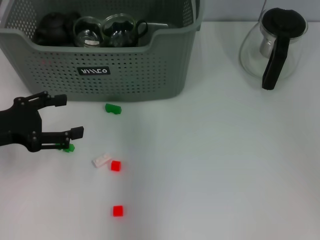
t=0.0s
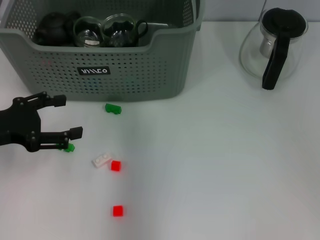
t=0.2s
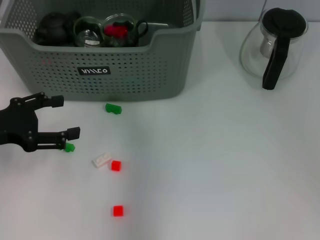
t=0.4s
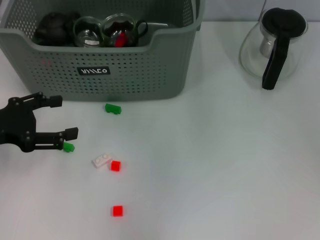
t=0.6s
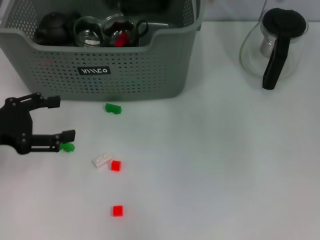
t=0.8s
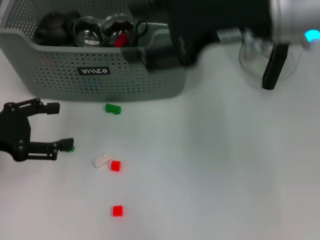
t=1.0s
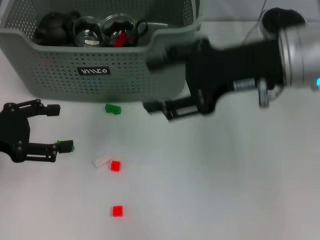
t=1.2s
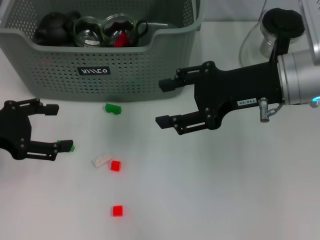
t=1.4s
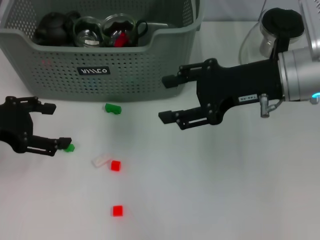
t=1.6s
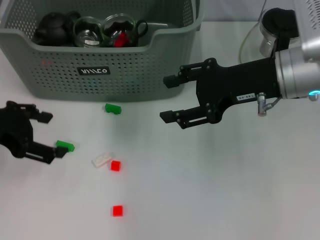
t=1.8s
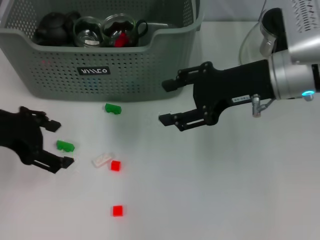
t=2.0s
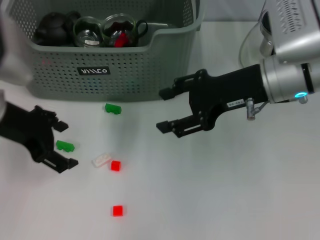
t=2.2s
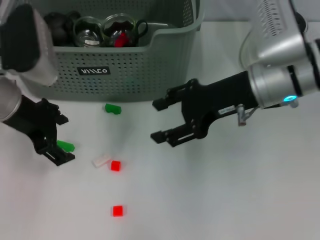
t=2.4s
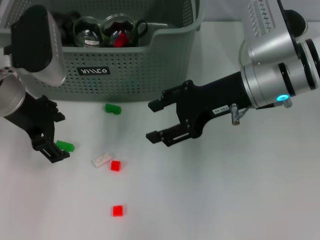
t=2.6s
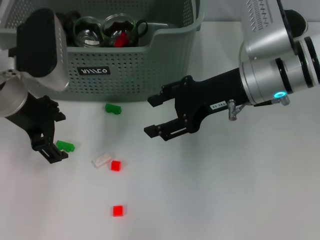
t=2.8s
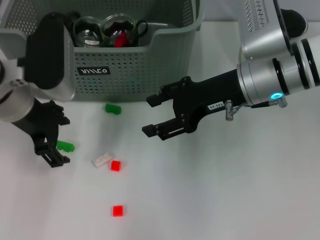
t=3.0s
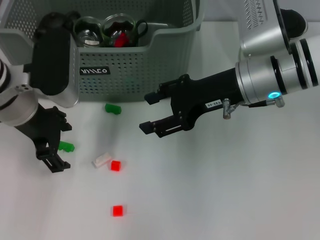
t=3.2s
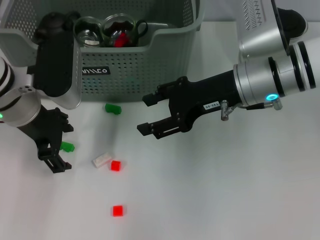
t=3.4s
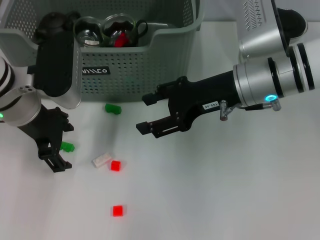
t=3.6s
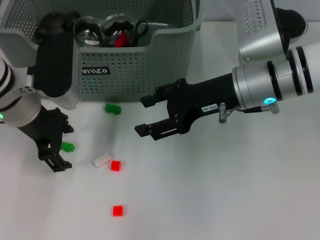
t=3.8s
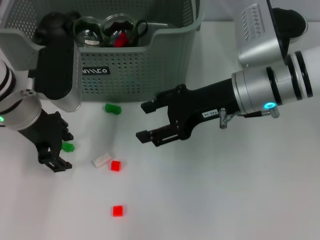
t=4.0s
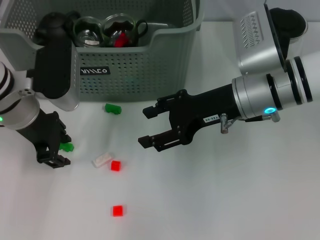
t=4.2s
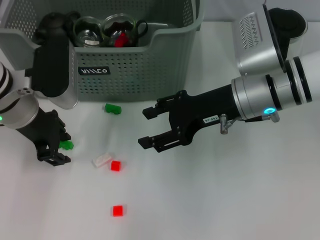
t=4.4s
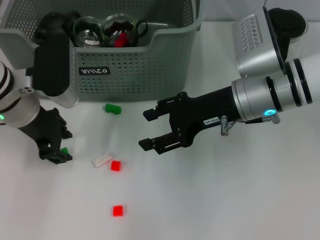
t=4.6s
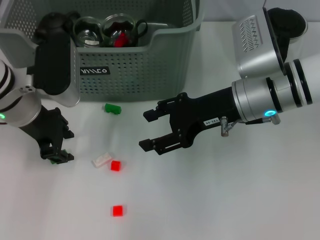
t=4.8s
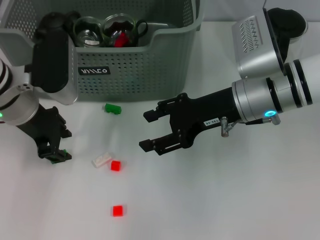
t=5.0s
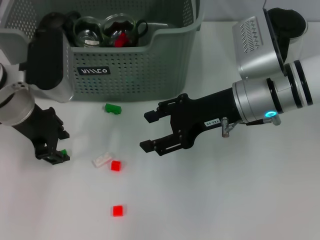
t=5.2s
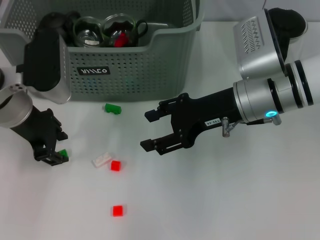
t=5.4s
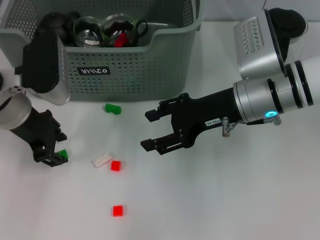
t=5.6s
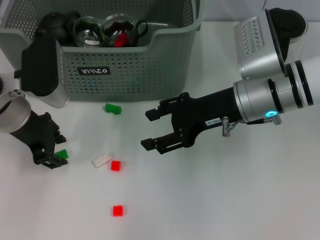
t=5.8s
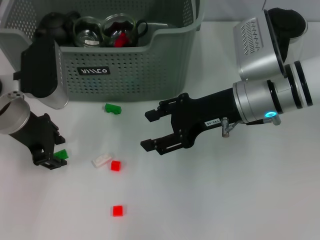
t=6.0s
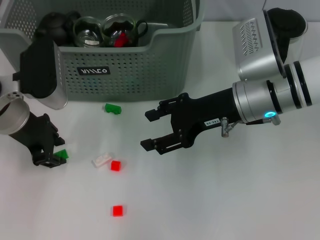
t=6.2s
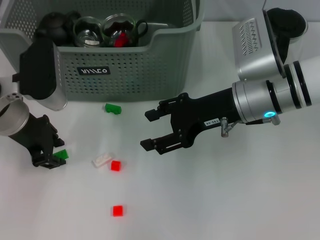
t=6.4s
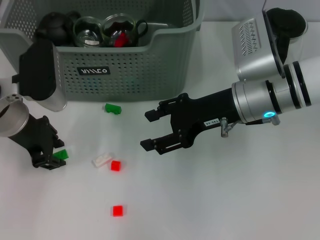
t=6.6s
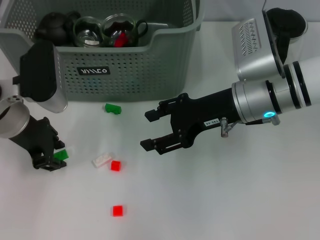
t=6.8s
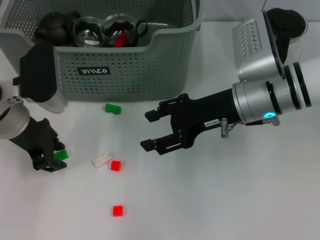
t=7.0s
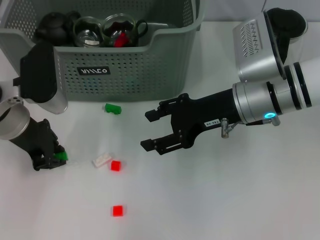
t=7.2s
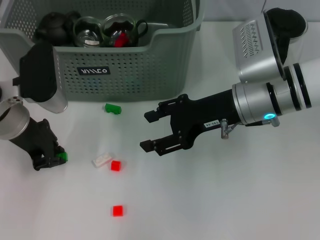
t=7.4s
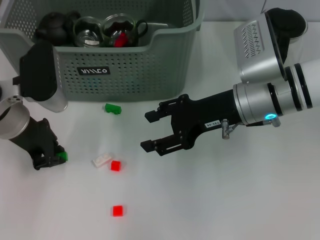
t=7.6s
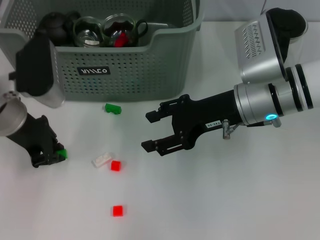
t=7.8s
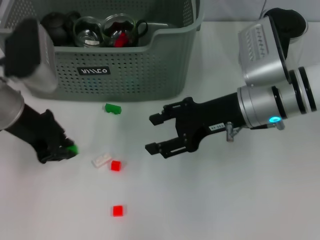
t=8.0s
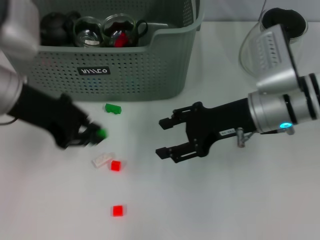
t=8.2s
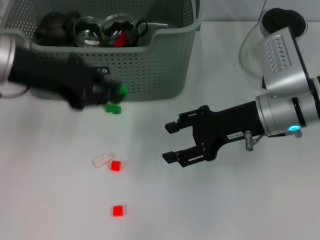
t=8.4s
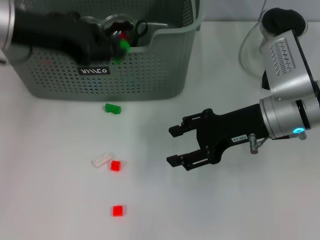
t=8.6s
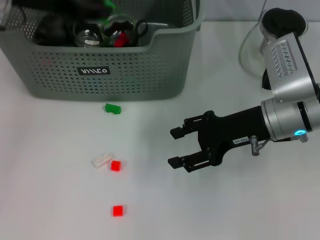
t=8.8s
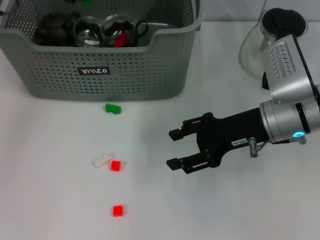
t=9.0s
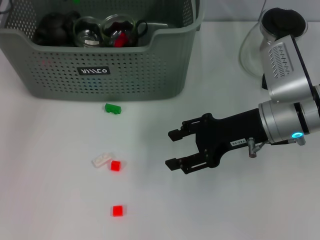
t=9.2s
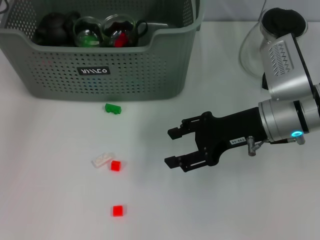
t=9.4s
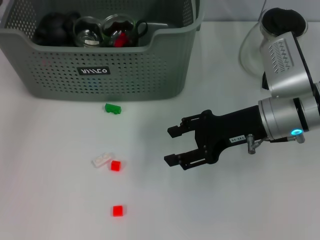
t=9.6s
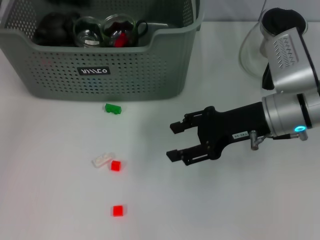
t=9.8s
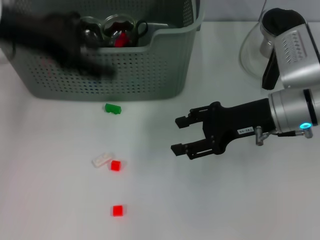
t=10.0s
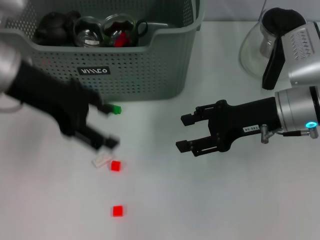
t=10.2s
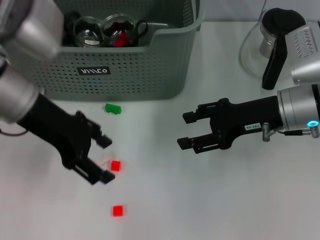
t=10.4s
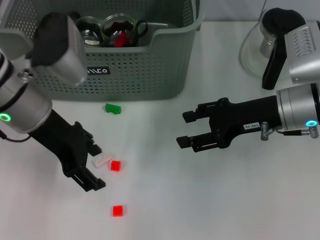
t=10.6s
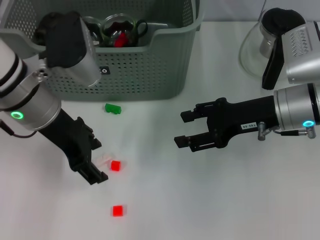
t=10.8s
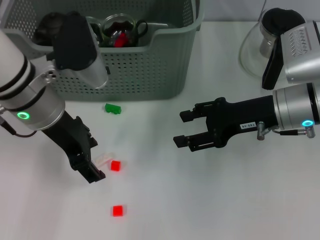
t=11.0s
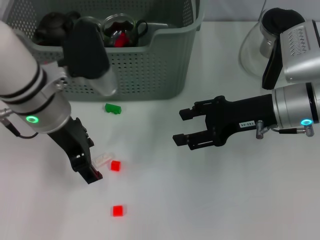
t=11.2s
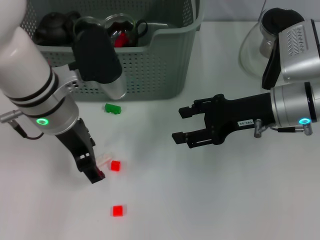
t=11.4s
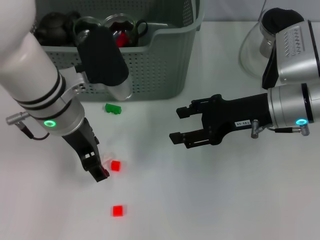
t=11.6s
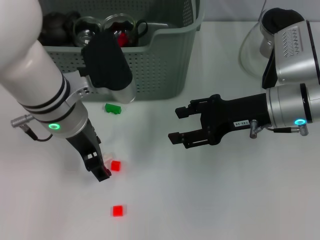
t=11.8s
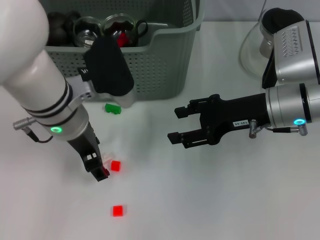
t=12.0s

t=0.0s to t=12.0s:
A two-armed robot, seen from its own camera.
Task of the whole recording: pick up the teacup on the table and place it into the storage bin, pick up the block on the table and place it into the storage bin.
Step, t=0.6s to t=7.4s: Grasp the green block with left gripper.
Step, t=7.6s to t=9.4s: Place the green block in the storage box with left gripper.
t=0.0s to t=1.6s: The left gripper travels upward by roughly 5 cm, while the right gripper is displaced to the right, backward and downward by about 20 cm, and opens.
t=1.6s to t=3.0s: The left gripper is displaced to the right and forward by roughly 10 cm; the right gripper ends up approximately 5 cm from where it was.
t=3.0s to t=6.0s: The grippers make only small movements.
t=6.0s to t=7.6s: The left gripper closes its fingers.
t=7.6s to t=9.0s: The left gripper is displaced upward and forward by about 15 cm.
t=9.0s to t=10.4s: The left gripper is displaced backward and downward by about 10 cm, and opens its fingers.
t=10.4s to t=12.0s: The left gripper goes roughly 5 cm to the right.

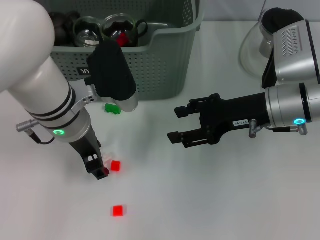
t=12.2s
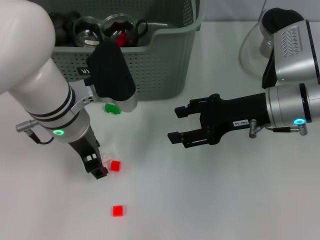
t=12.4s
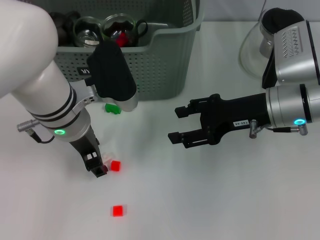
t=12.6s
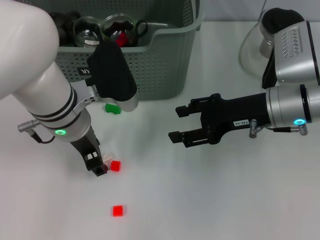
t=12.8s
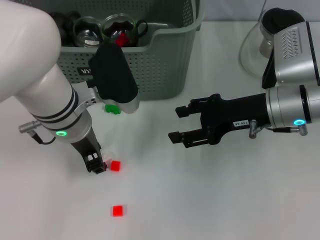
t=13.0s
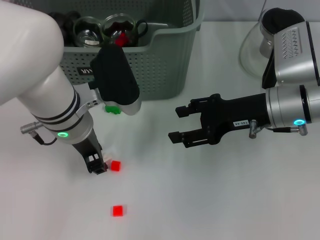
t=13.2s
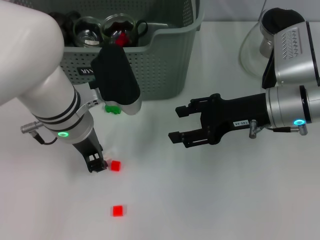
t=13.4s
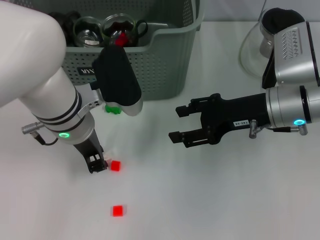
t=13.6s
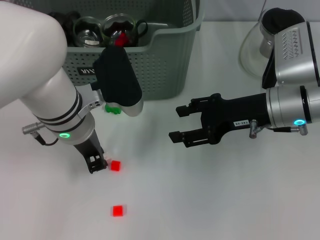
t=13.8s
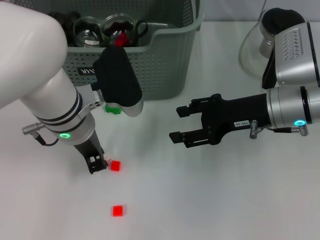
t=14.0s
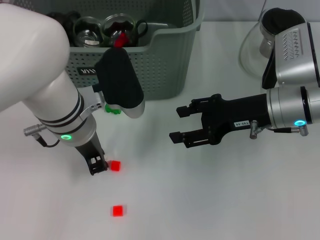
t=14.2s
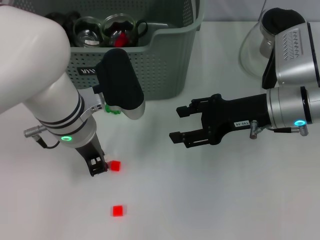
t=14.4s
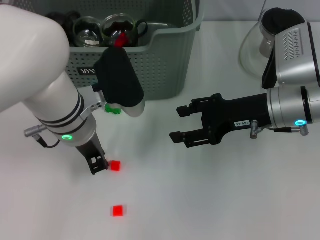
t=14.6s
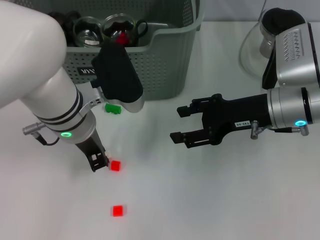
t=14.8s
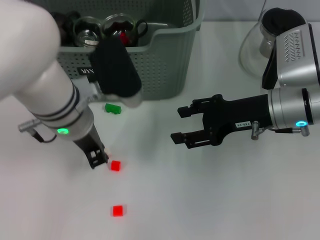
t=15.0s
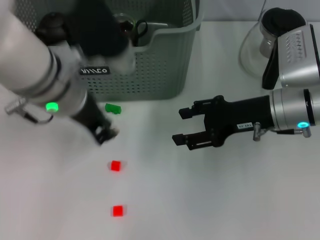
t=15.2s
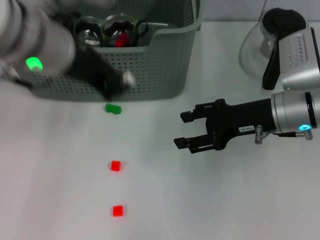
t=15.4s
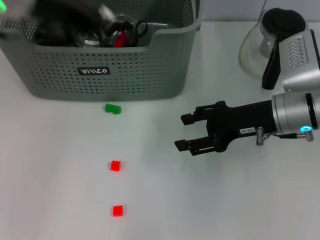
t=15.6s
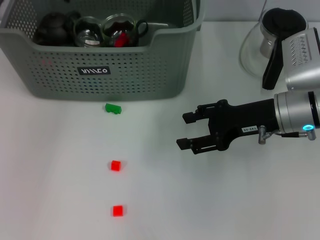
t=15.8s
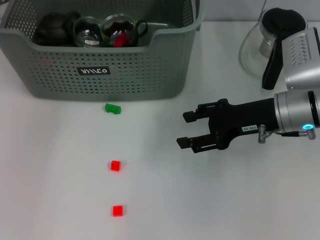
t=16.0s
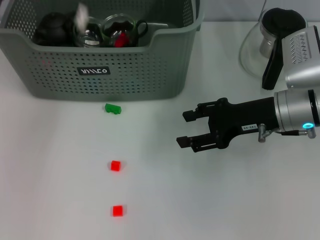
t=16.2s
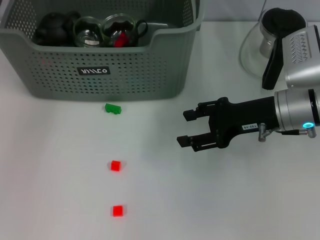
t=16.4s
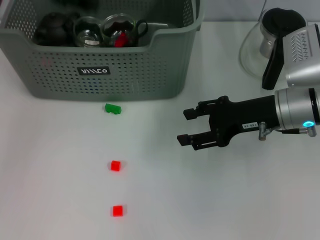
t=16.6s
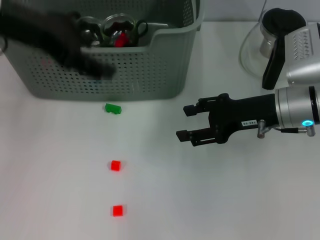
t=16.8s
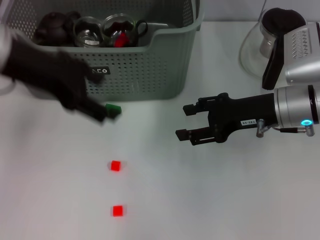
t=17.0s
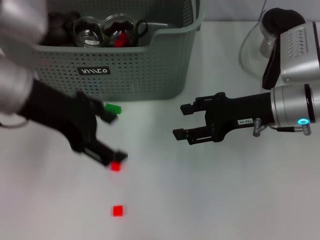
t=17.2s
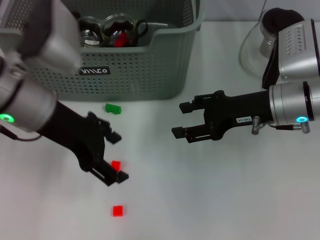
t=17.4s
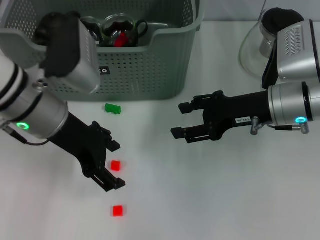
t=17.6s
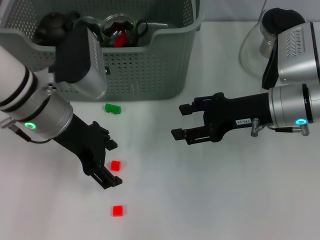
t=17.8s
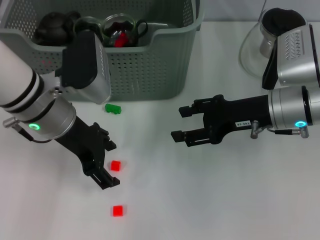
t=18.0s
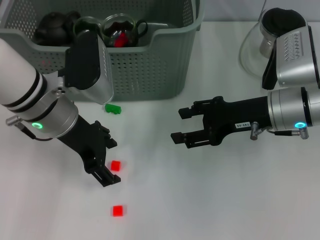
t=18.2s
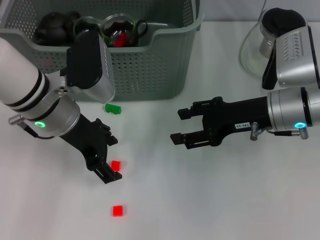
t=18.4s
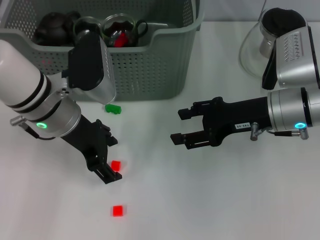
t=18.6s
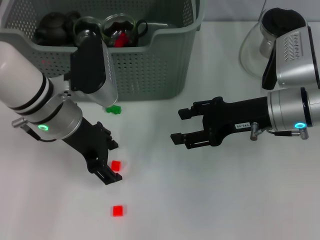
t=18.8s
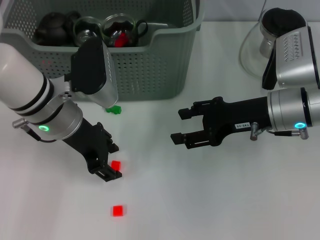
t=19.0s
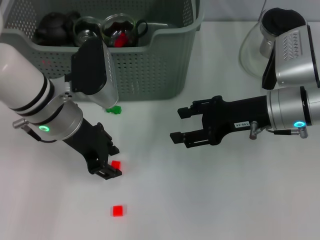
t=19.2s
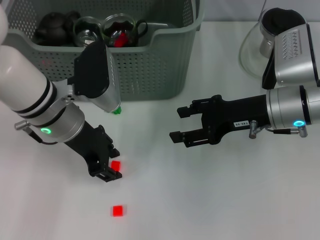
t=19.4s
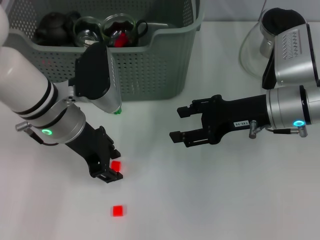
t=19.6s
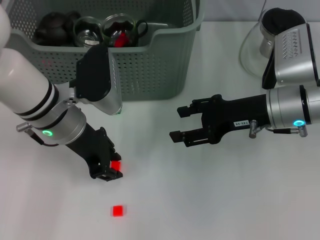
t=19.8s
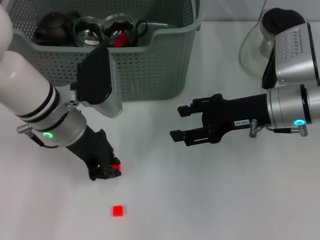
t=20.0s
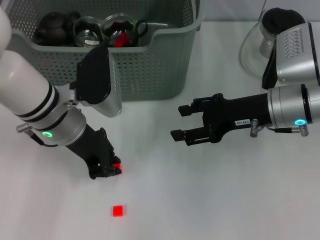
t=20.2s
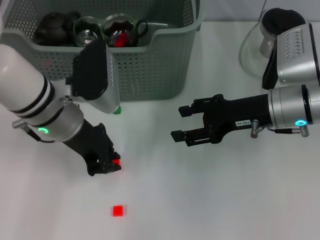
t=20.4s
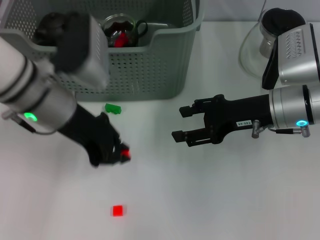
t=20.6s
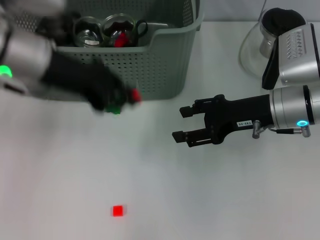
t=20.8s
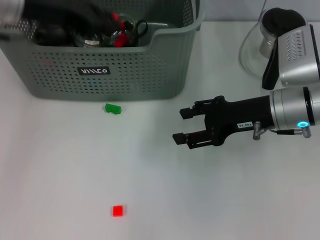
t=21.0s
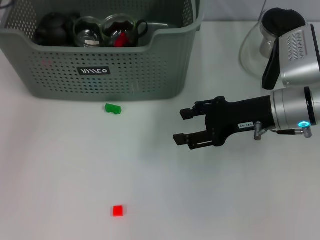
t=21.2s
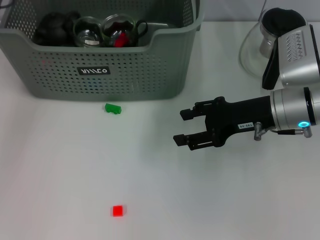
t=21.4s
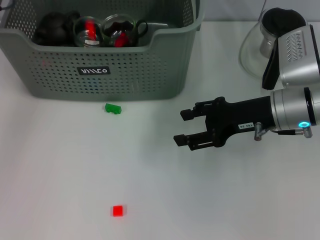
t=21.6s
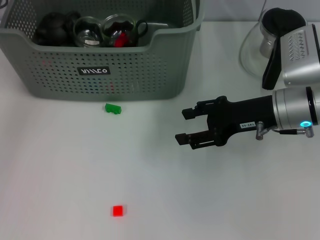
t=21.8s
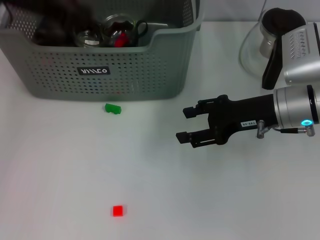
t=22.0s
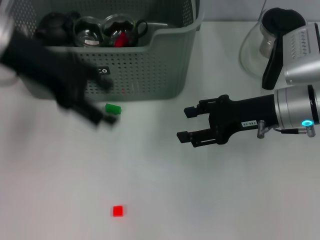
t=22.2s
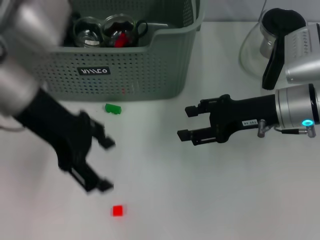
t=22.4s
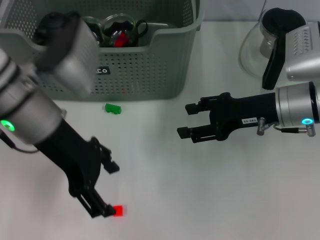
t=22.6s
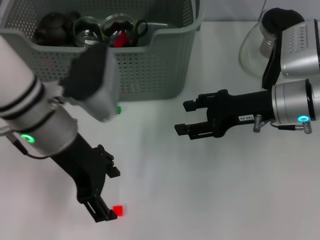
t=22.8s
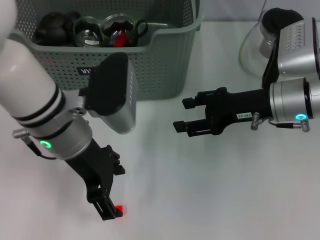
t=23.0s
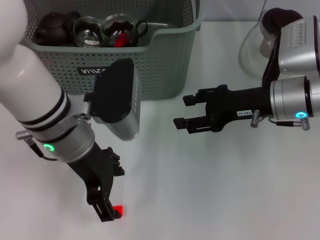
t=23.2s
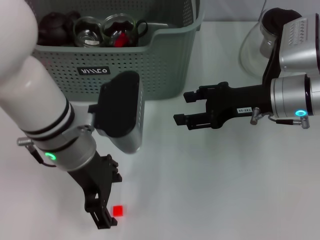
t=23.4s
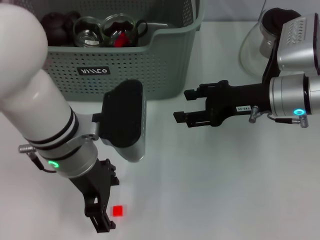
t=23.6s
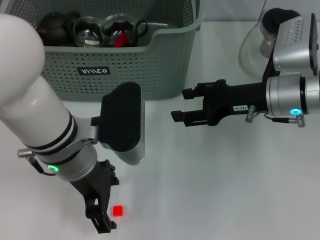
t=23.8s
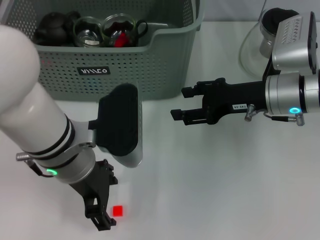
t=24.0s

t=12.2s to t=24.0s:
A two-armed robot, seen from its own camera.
Task of the whole recording: pick up the teacup on the table and place it into the storage bin, pick up the block on the table and place it into the storage bin.
Step, t=12.2s to t=14.6s: Grasp the white block with left gripper.
Step, t=14.8s to t=16.6s: Place the white block in the storage box with left gripper.
Step, t=16.8s to t=20.2s: Grasp the orange block with left gripper.
Step, t=20.4s to t=21.6s: Place the orange block in the storage box with left gripper.
t=12.2s to t=13.6s: The left gripper closes its fingers.
t=13.6s to t=15.2s: The left gripper moves upward, roughly 5 cm.
t=15.2s to t=16.6s: The left gripper travels to the left, upward and forward by some 15 cm, and opens up.
t=16.6s to t=18.2s: The left gripper goes roughly 15 cm downward and to the right.
t=18.2s to t=19.6s: The left gripper closes its fingers.
t=19.6s to t=21.0s: The left gripper travels upward and to the left by some 15 cm, and closes its fingers.
t=21.0s to t=22.6s: The left gripper heads downward, backward and to the right, covering approximately 10 cm, and opens up.
t=22.6s to t=24.0s: The left gripper ends up approximately 5 cm from where it was.
